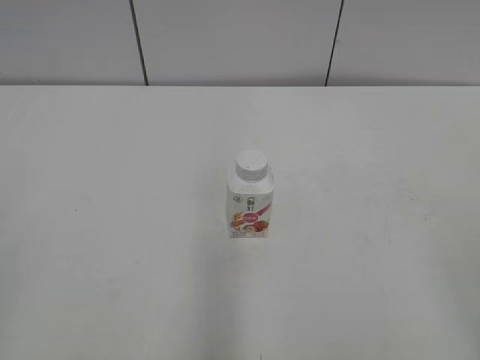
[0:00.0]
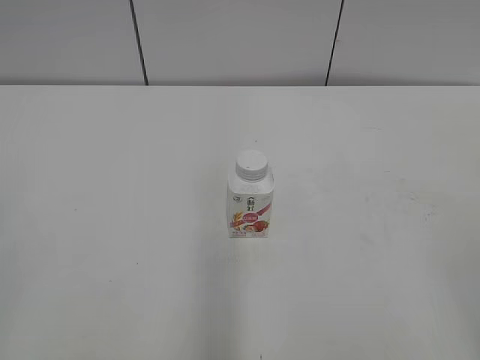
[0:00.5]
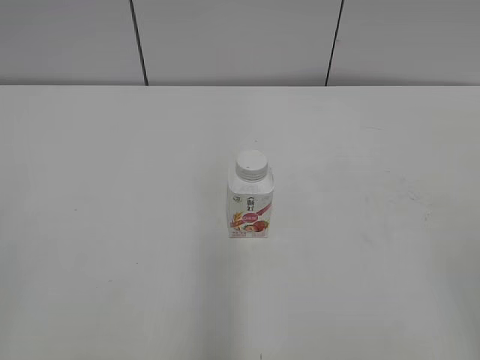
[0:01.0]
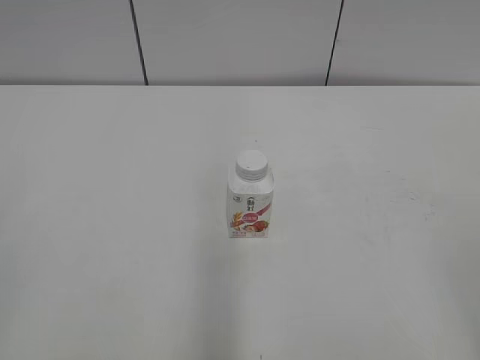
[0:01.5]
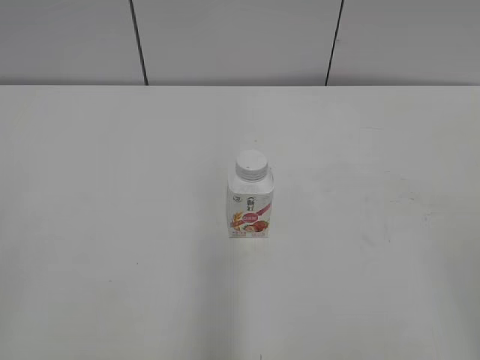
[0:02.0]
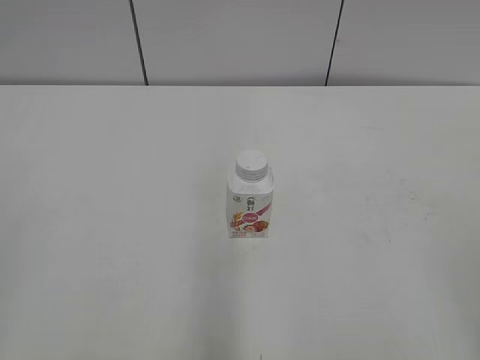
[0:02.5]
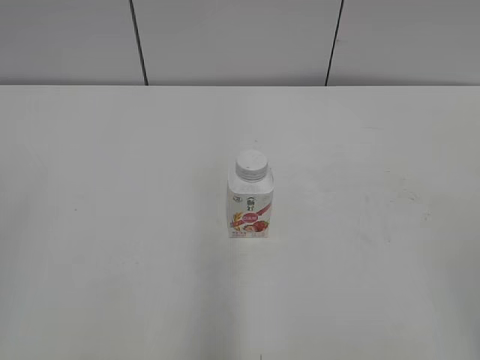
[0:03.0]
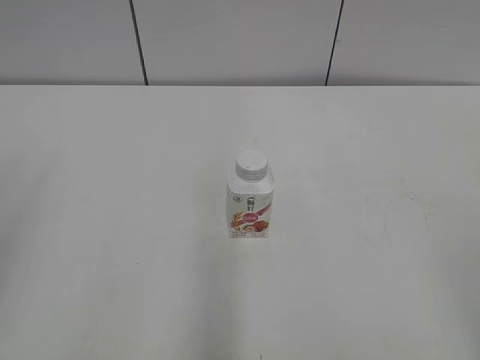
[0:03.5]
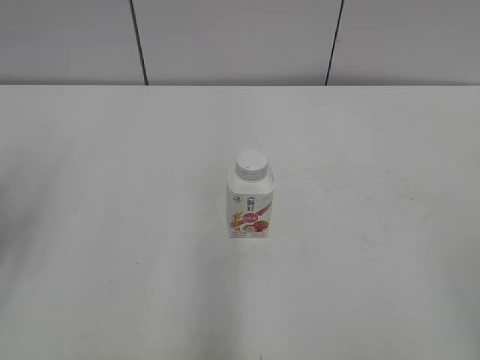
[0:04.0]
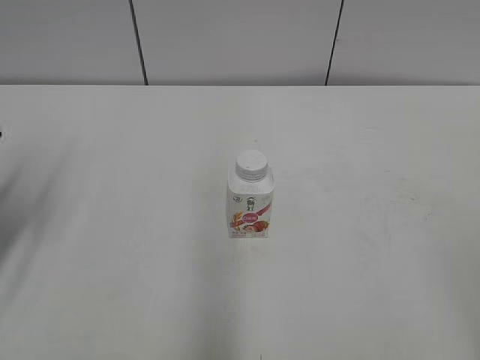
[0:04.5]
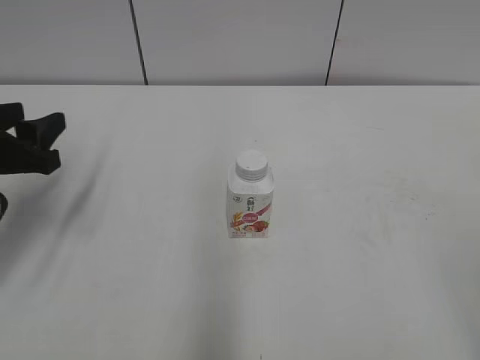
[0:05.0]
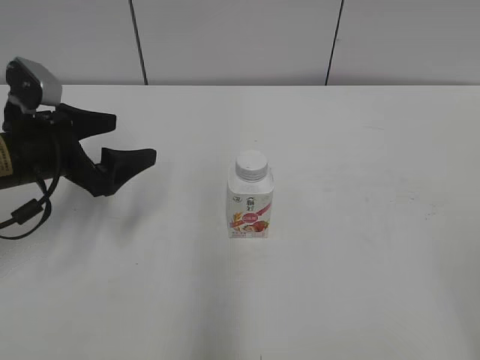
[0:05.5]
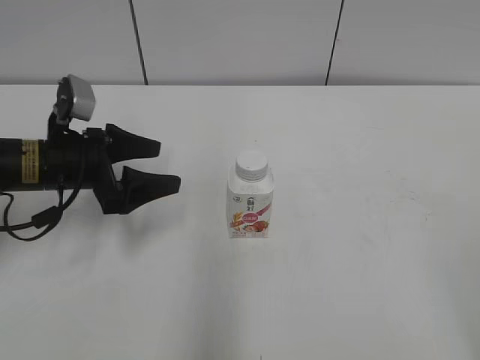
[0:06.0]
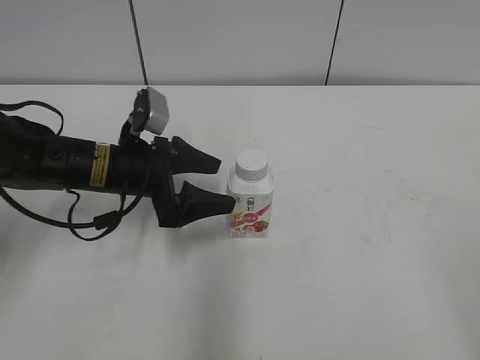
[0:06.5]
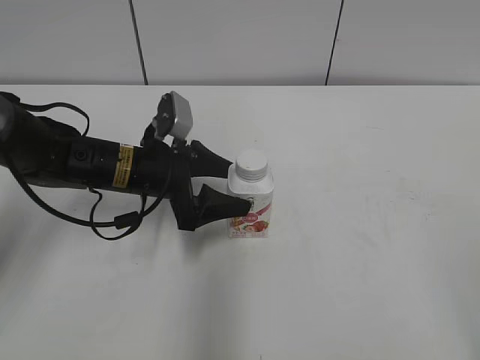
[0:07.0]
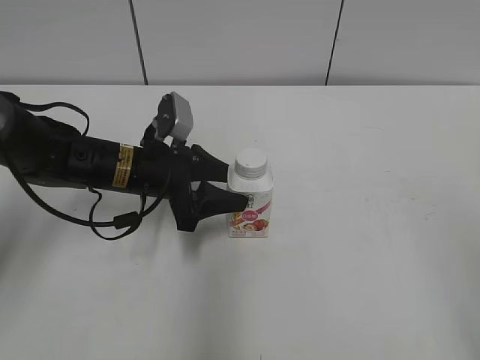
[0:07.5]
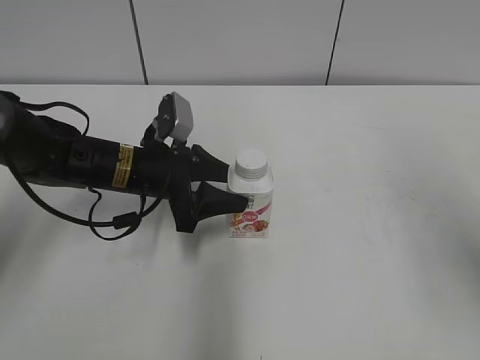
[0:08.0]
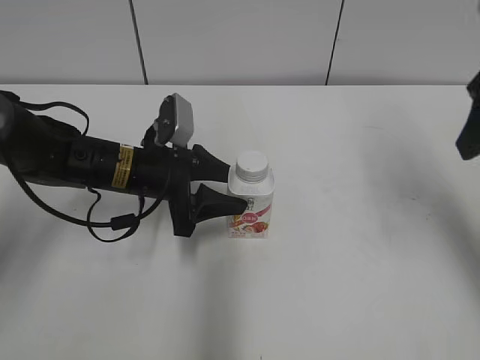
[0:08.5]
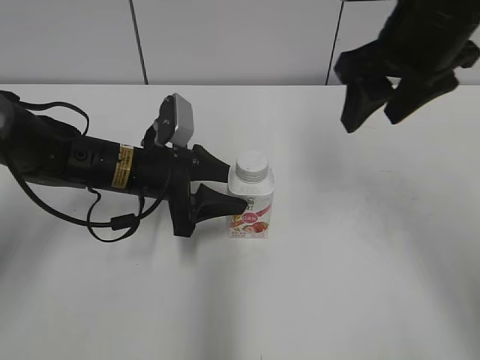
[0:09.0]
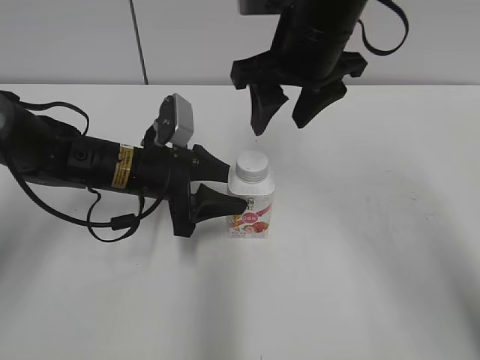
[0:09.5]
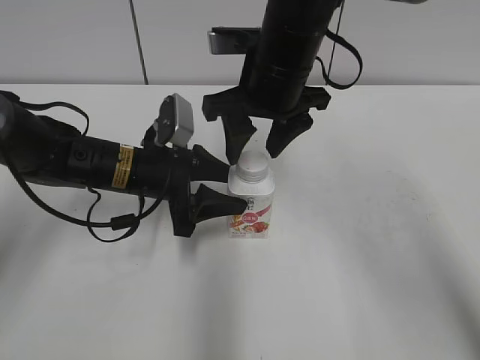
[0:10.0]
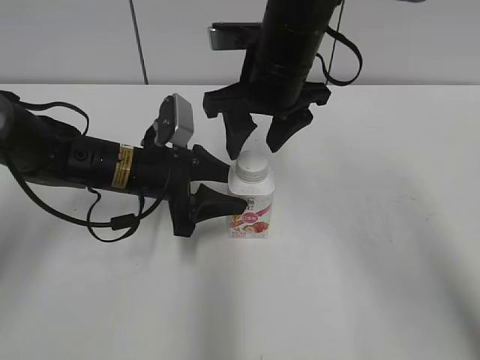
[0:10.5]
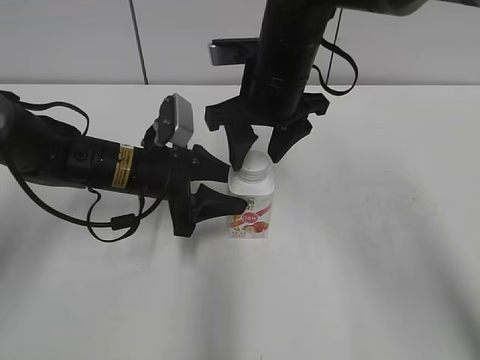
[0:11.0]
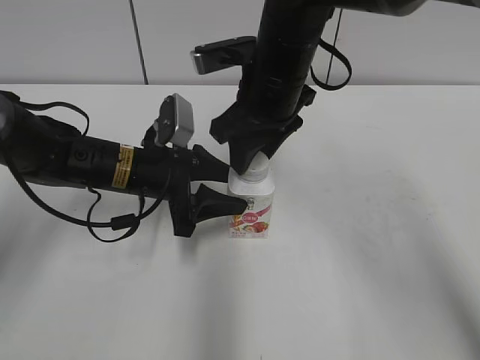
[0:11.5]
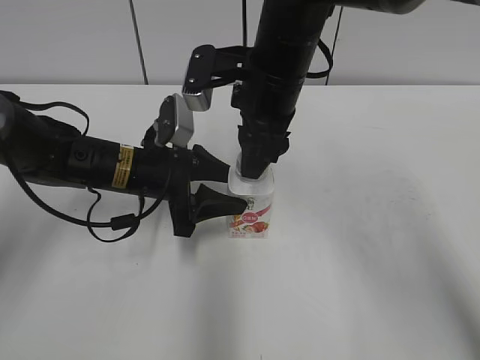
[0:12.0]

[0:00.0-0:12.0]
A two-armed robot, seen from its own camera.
Step, 0:00.0 to 0:07.0: Grab the Yili Changqing with the left hand.
0:02.0 to 0:04.0: The left gripper is displaced forward by roughly 15 cm.
0:04.0 to 0:06.0: The left gripper heads forward, downward and to the right, covering approximately 20 cm, and opens up.
0:06.0 to 0:08.0: The right gripper moves forward, approximately 15 cm, while the left gripper goes some 10 cm to the right, and closes up.
0:08.0 to 0:10.0: The right gripper travels to the left and forward by some 30 cm.
0:10.0 to 0:12.0: The right gripper closes its fingers.

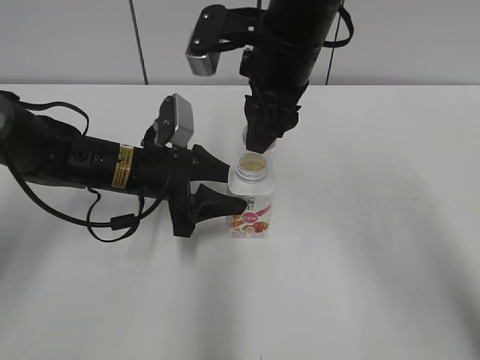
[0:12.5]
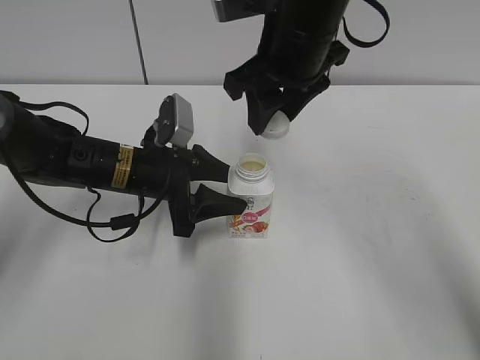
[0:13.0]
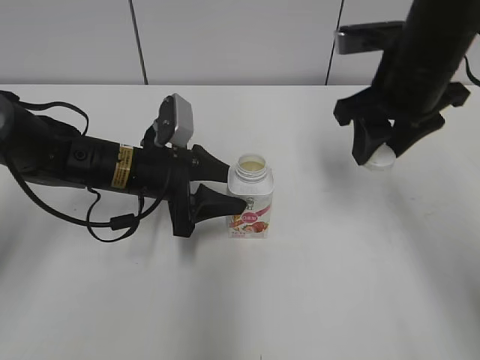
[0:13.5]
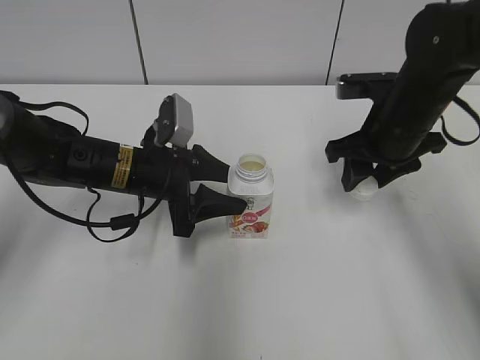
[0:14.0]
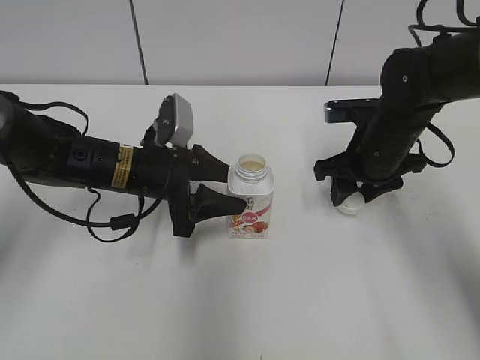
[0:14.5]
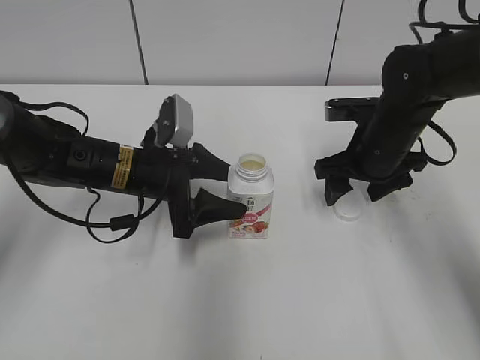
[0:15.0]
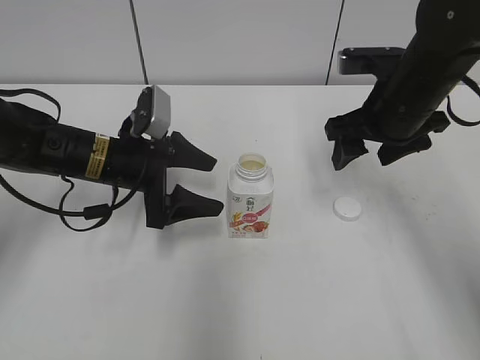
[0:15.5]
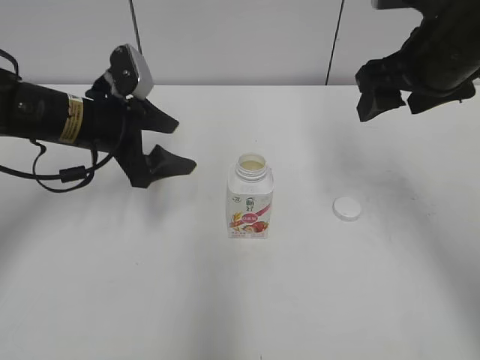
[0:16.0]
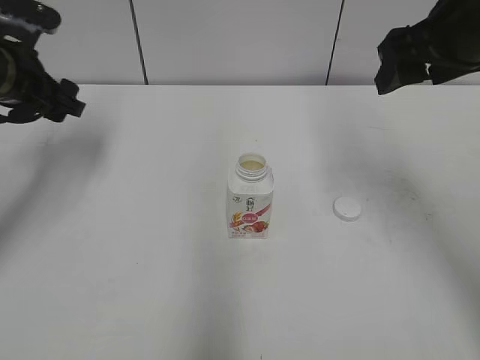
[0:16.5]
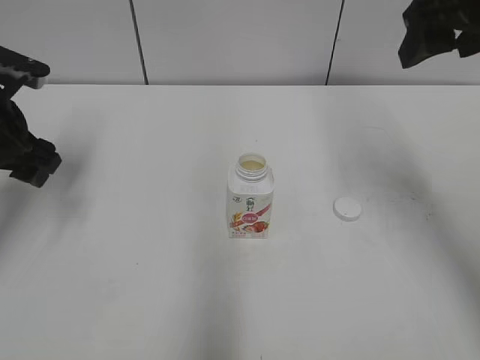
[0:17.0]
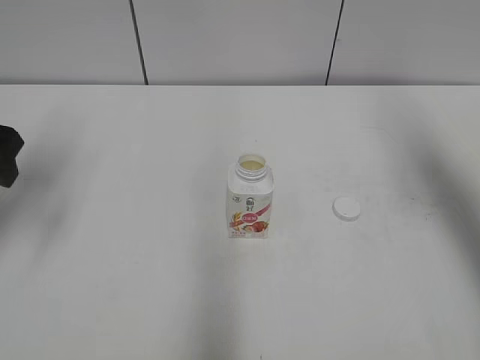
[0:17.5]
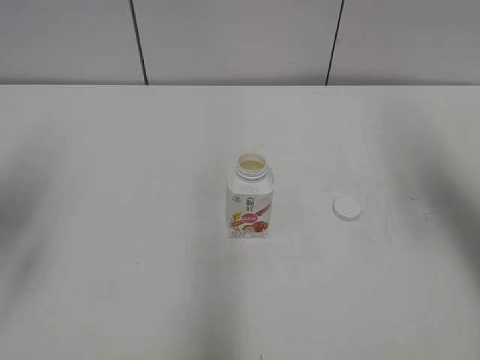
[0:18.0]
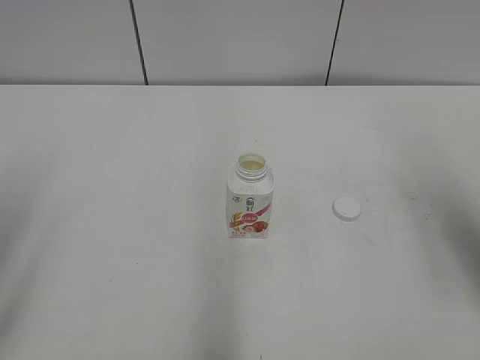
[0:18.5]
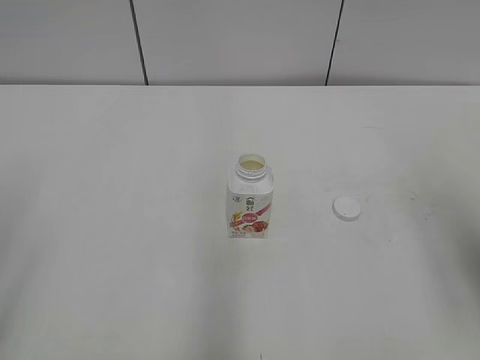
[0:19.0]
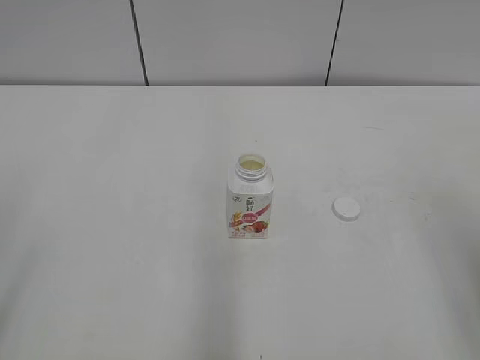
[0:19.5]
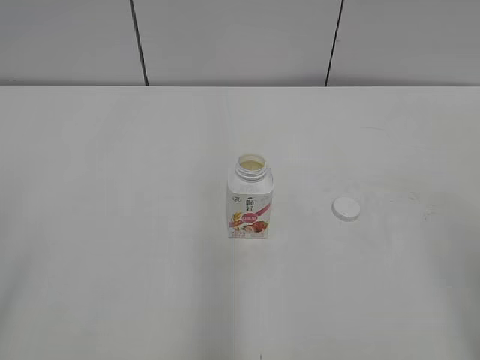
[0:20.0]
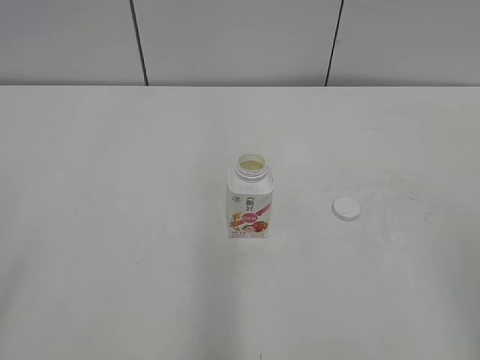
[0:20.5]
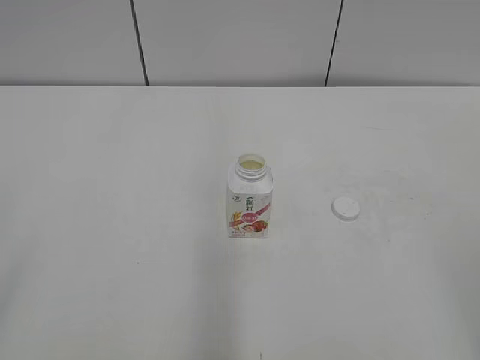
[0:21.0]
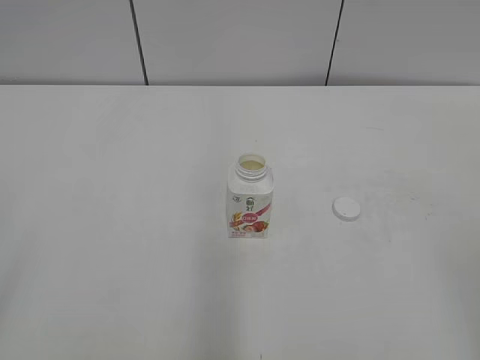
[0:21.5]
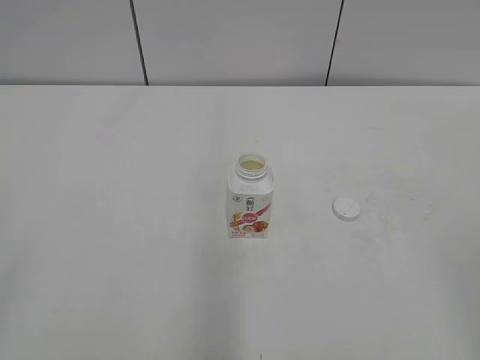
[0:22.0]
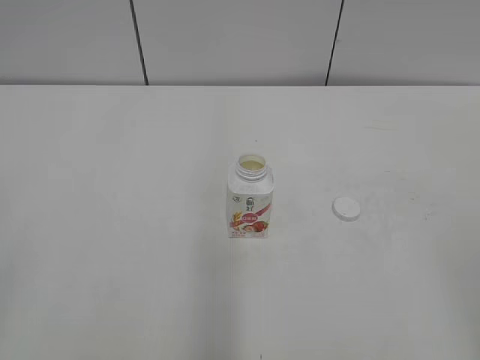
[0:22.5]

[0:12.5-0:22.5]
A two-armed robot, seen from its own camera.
Step, 0:12.5 to 0:14.5: Place the bottle cap on the right.
0:12.5 to 0:14.5: The right gripper goes about 20 cm to the right and downward.
0:14.5 to 0:16.5: The left gripper heads to the left and upward, covering roughly 15 cm, and opens up. The right gripper is displaced upward by roughly 20 cm, and opens its fingers.
0:16.5 to 0:18.5: The left gripper goes some 25 cm backward, while the right gripper is displaced backward and to the right by about 15 cm.
0:18.5 to 0:20.5: The right gripper shifts roughly 20 cm backward.
